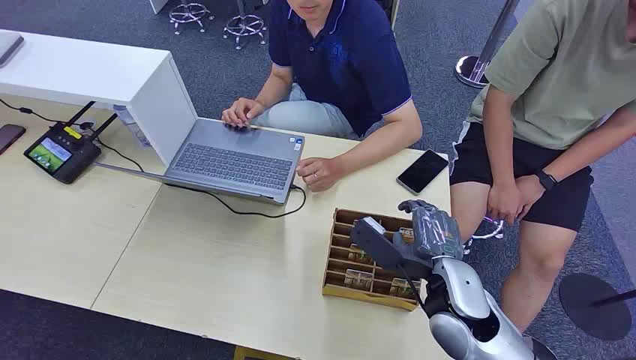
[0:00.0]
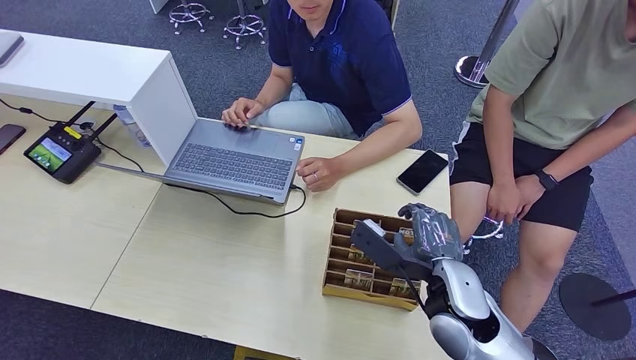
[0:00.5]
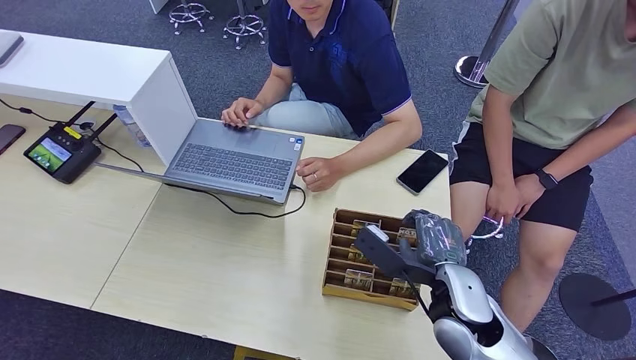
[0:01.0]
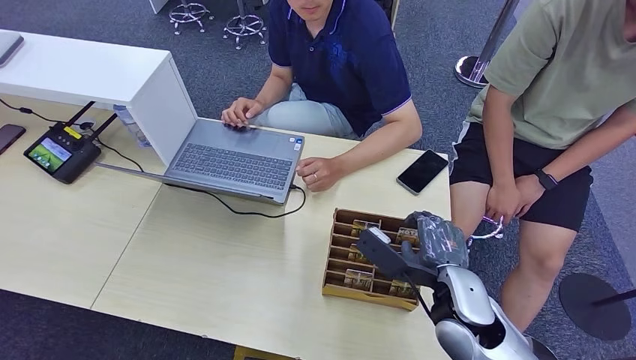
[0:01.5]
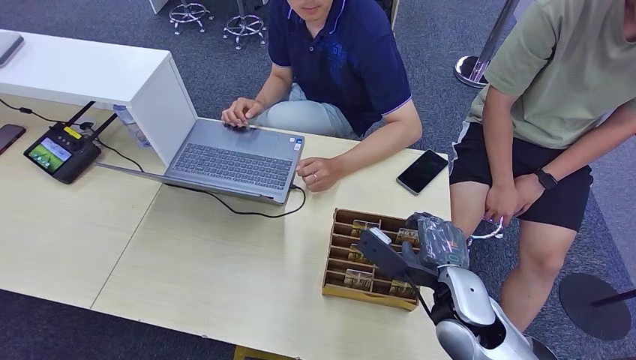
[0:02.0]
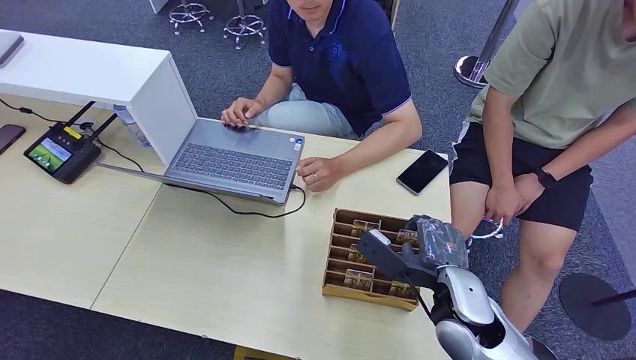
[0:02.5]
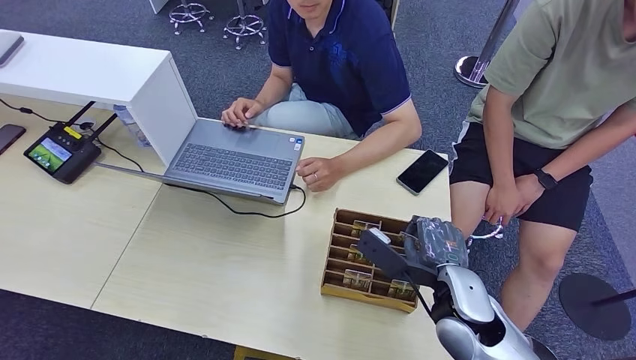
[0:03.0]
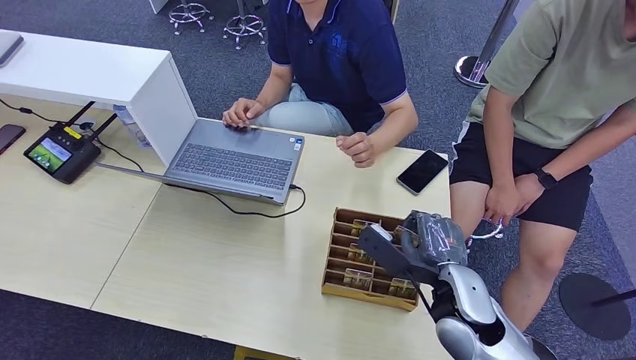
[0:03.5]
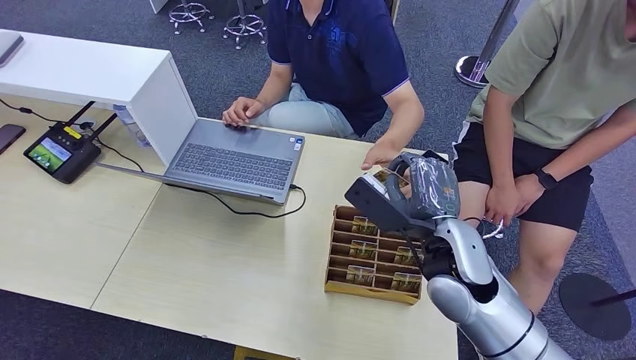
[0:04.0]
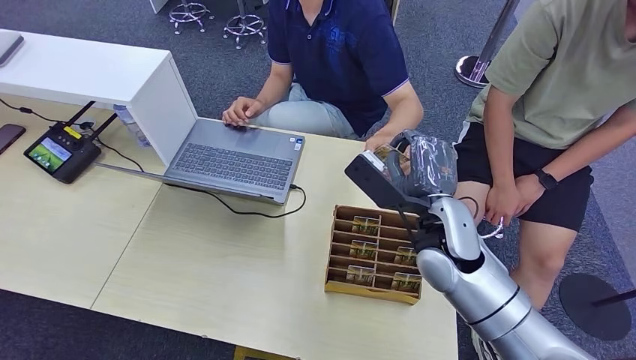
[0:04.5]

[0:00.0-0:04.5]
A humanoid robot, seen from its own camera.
Step, 0:00.0 to 0:03.5: Pick up the room card from the card holder.
Step, 0:04.0 to 0:04.5: Hand the room card to the target.
0:02.0 to 0:04.5: The right hand travels forward and upward by about 10 cm.
